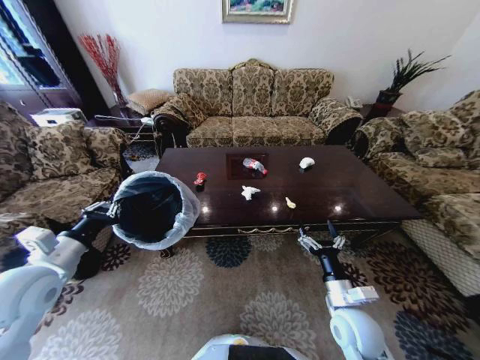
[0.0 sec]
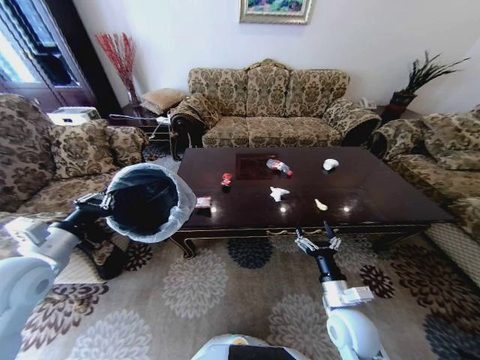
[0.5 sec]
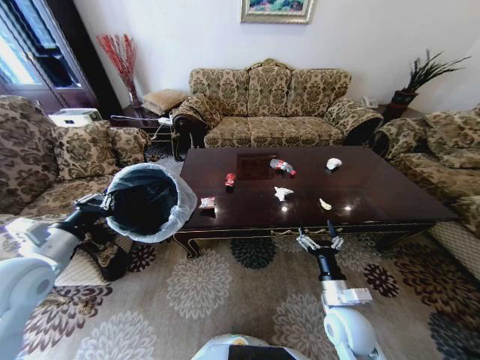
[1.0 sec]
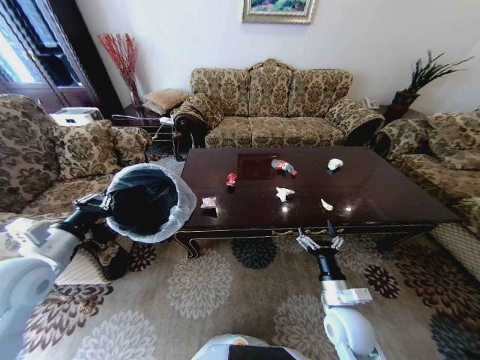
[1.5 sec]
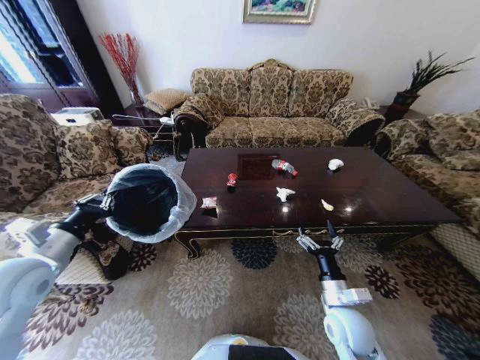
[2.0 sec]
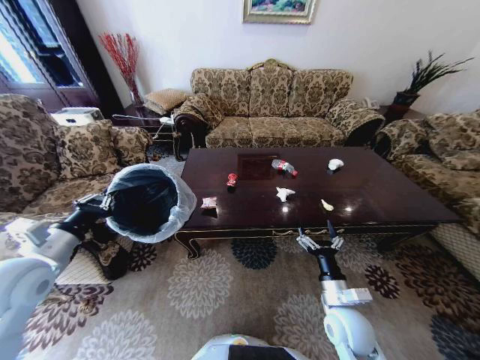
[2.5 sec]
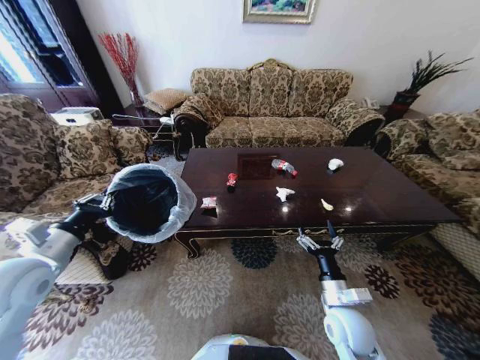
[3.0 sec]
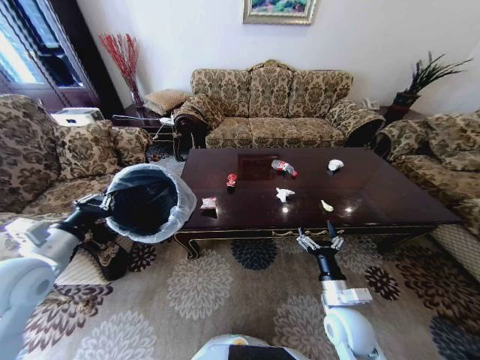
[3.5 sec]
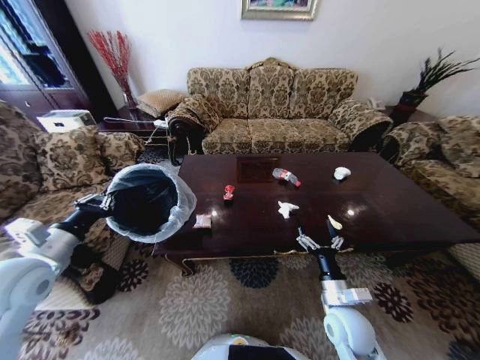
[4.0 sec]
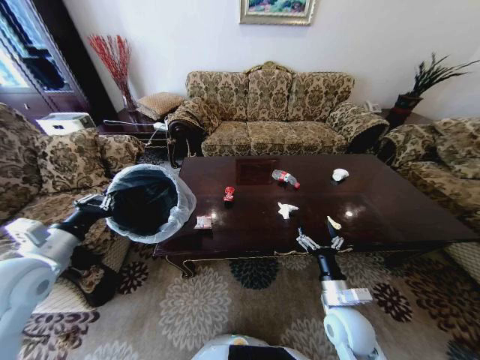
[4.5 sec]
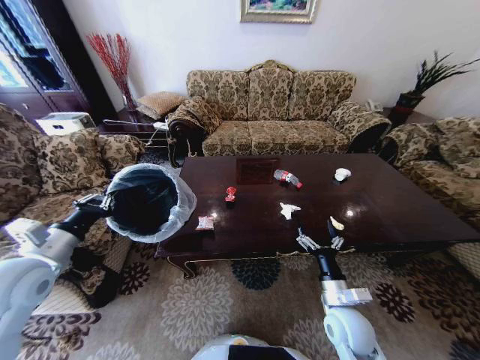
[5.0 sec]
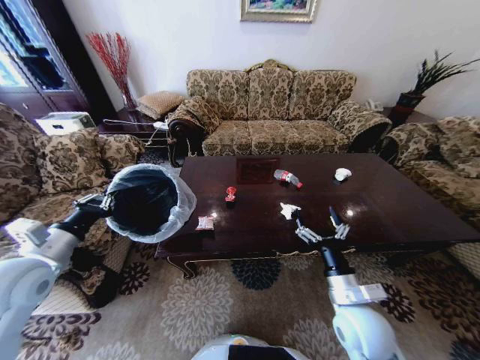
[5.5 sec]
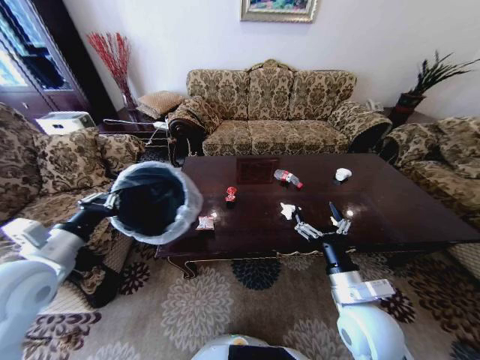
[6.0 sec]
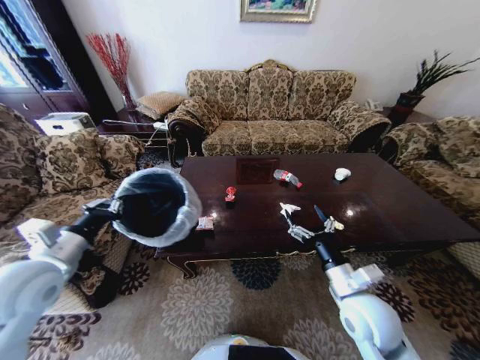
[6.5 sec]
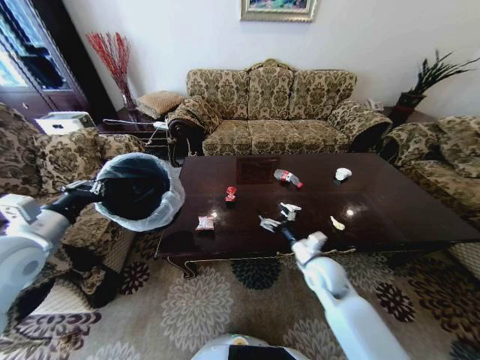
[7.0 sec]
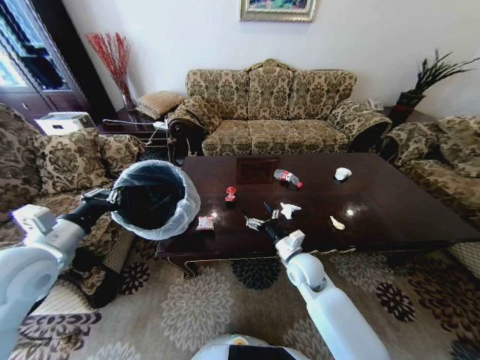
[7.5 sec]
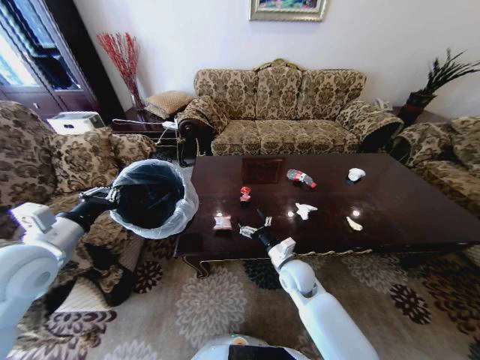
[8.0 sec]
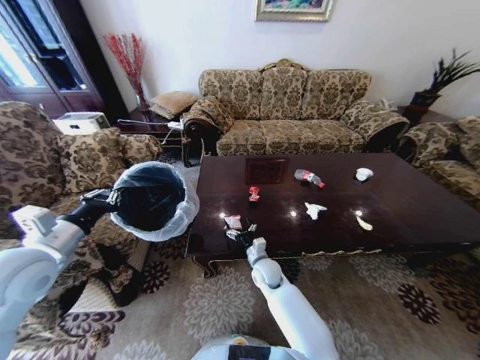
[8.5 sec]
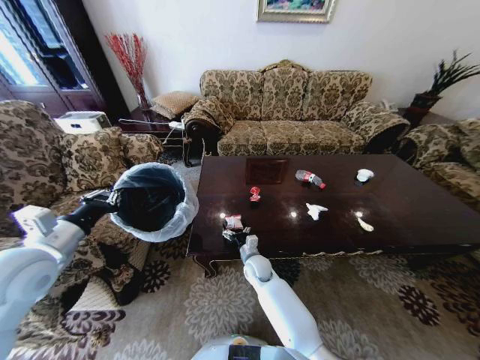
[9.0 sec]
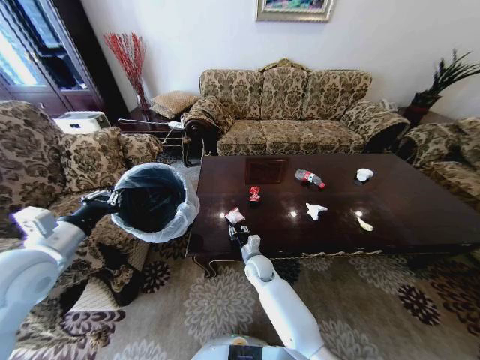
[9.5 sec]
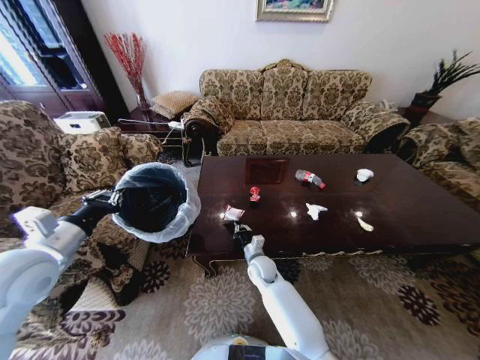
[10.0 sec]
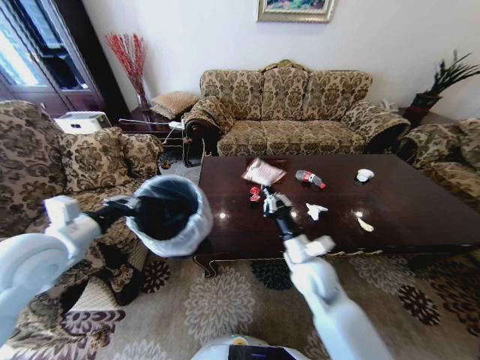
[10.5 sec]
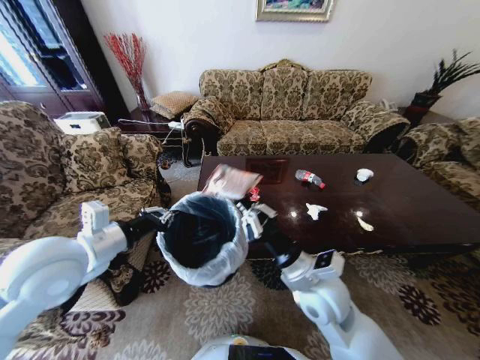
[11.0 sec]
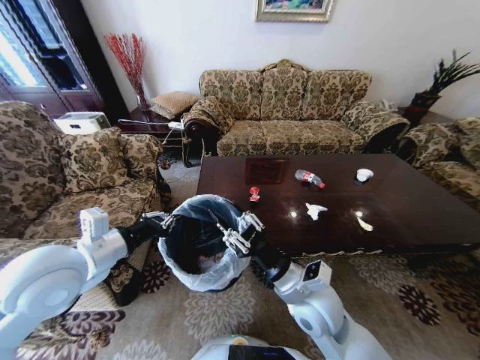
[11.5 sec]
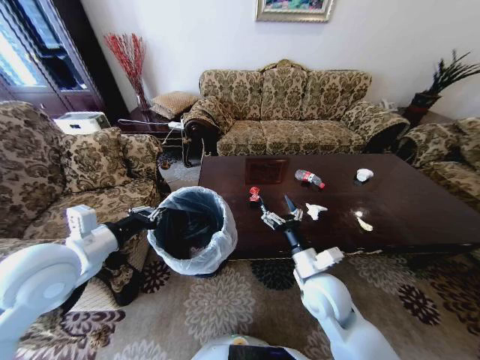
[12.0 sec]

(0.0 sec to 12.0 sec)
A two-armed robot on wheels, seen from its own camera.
Task of the whole recording: Move to the front of the table and place the trash on the table into the trash bin.
4.0 sec - 6.0 sec: The right gripper heads upward, covering approximately 10 cm.
6.0 sec - 8.0 sec: The right gripper shifts some 20 cm forward, downward and to the left.
8.0 sec - 10.0 sec: The right gripper heads to the left and downward, covering about 10 cm, and closes.
10.0 sec - 12.0 sec: The right gripper is displaced upward, backward and to the right by some 25 cm, and opens. The left gripper shifts about 5 cm to the right.

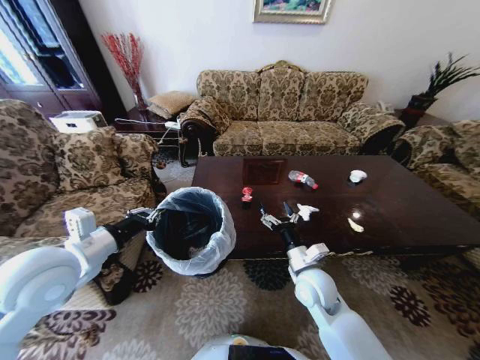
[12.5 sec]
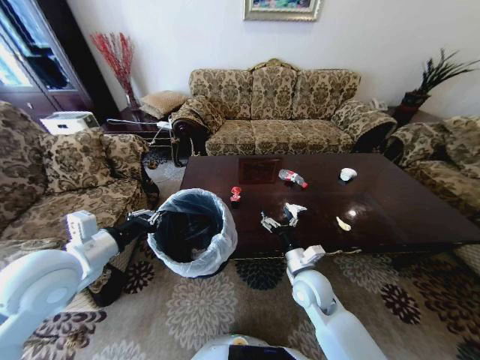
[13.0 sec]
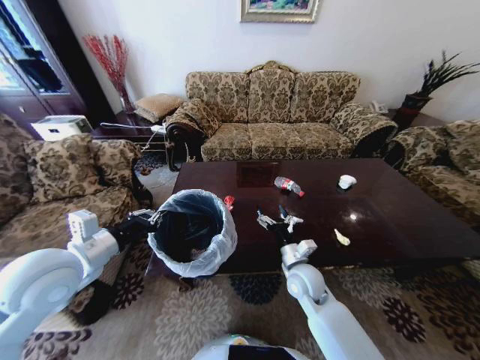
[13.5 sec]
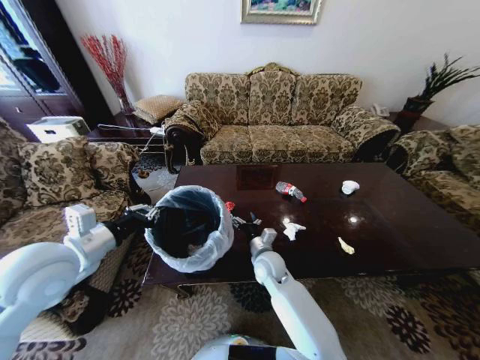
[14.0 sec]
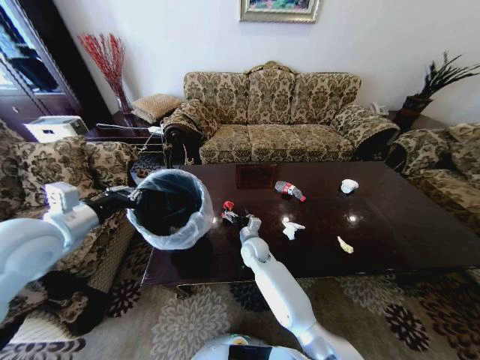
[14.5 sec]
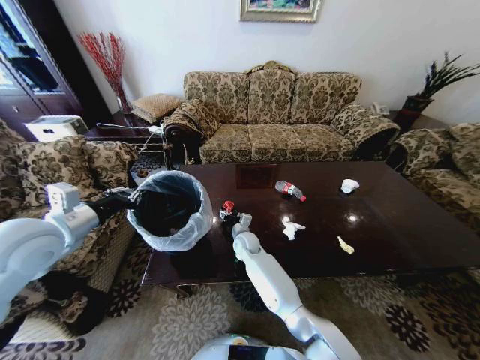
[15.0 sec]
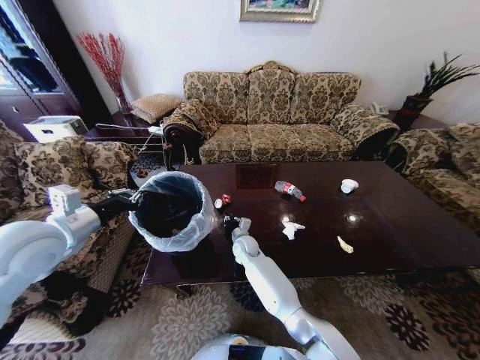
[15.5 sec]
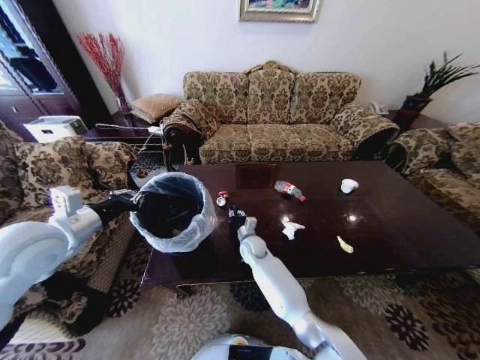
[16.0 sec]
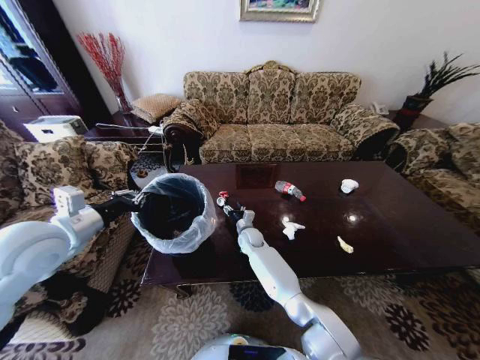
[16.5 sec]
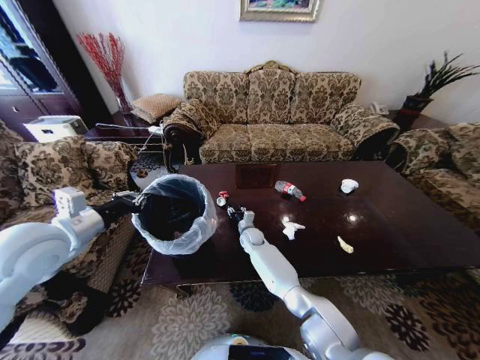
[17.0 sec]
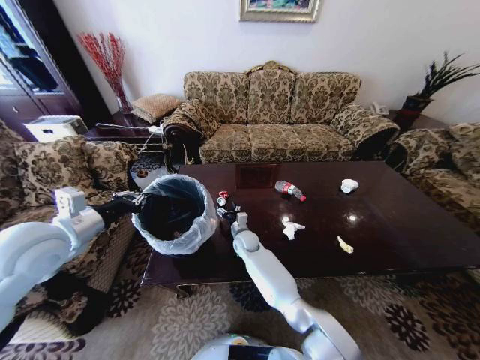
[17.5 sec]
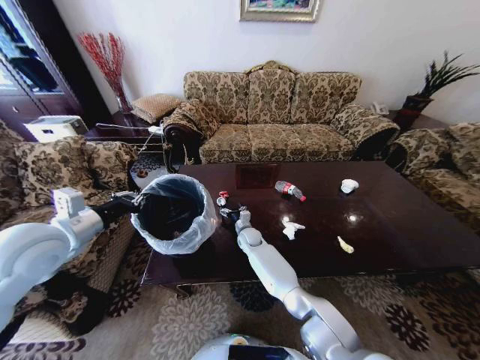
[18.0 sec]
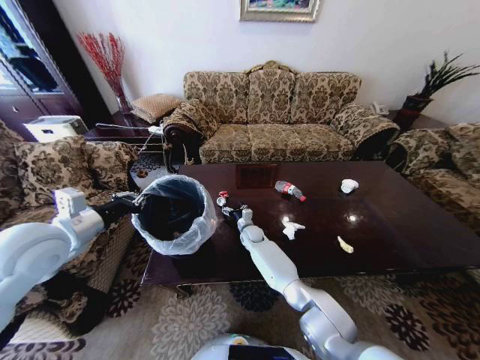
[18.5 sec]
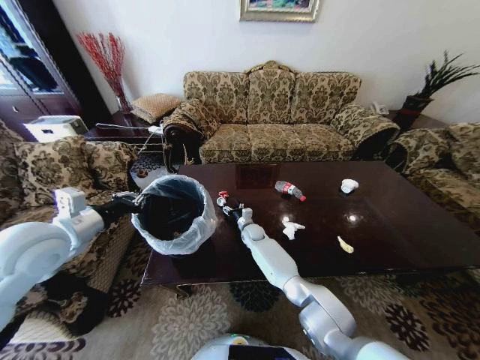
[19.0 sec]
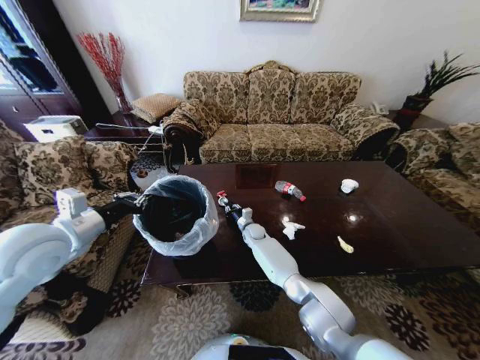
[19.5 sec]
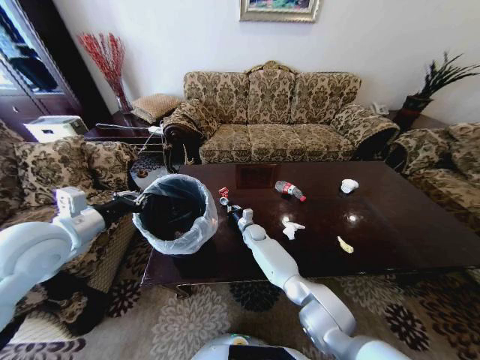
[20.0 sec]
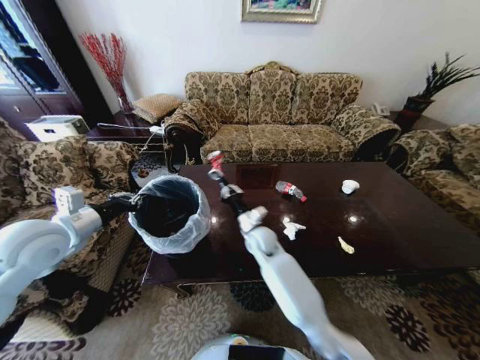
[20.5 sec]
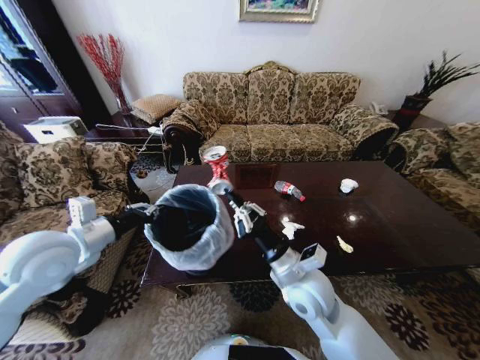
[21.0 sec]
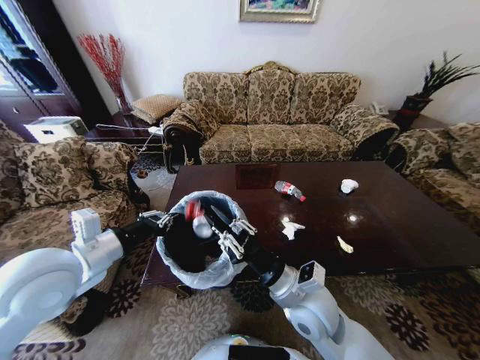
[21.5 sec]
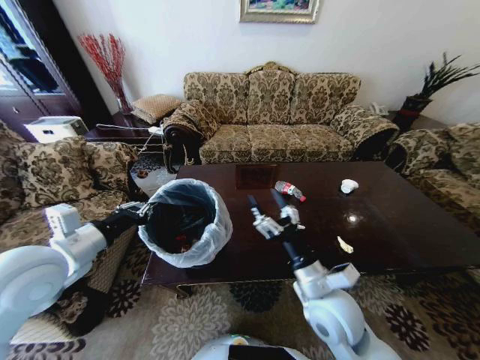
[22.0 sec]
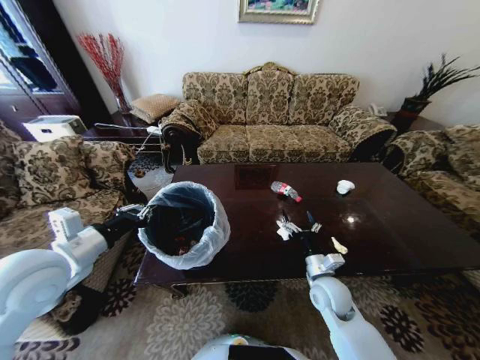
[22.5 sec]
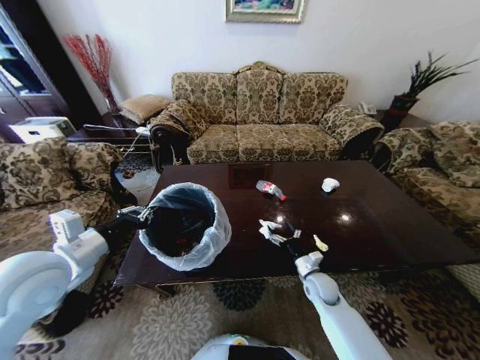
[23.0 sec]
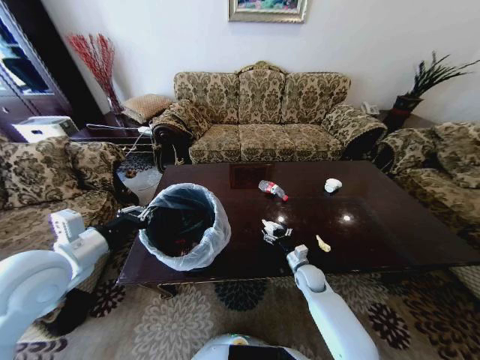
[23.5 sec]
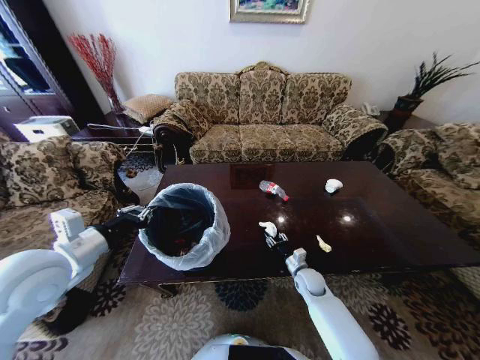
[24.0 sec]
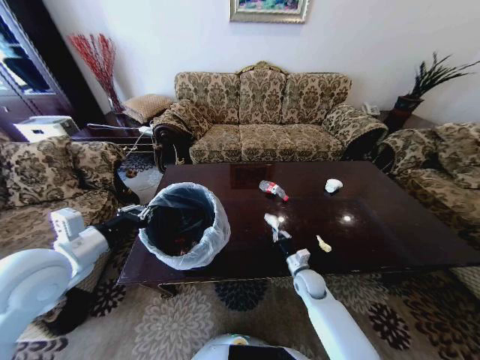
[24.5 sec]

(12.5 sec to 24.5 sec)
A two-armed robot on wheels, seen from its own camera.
Task of the whole recording: Move to the front of the table and place the trash on the table into the trash bin.
12.5 sec - 14.5 sec: The right gripper heads to the left, forward and downward, covering roughly 20 cm; the left gripper changes place by about 5 cm.
14.5 sec - 16.5 sec: The right gripper goes roughly 5 cm forward, and closes and opens again.
16.5 sec - 18.5 sec: The grippers move only a little.
18.5 sec - 20.5 sec: The right gripper is displaced upward and backward by roughly 15 cm, and closes.
20.5 sec - 22.5 sec: The right gripper is displaced to the right and backward by approximately 20 cm, and opens its fingers. The left gripper travels backward by about 5 cm.
22.5 sec - 24.5 sec: The right gripper is displaced downward and forward by roughly 15 cm, and closes.

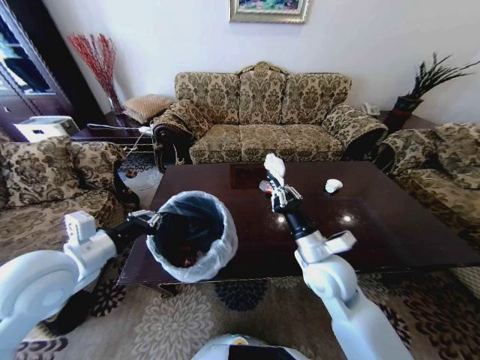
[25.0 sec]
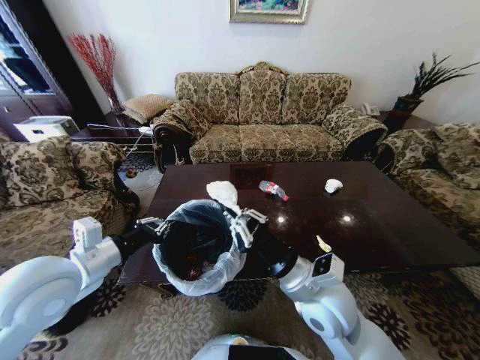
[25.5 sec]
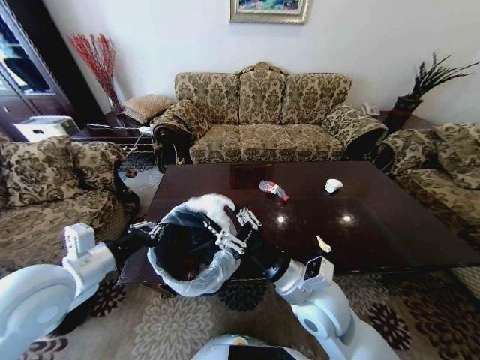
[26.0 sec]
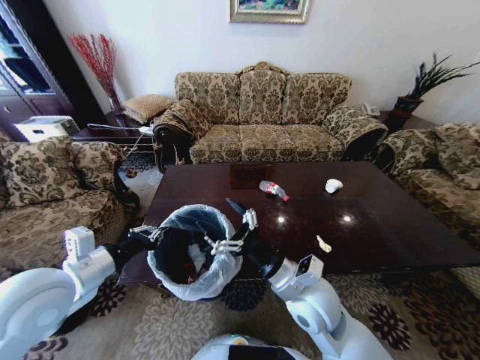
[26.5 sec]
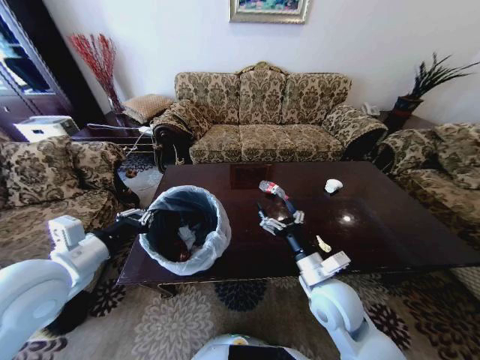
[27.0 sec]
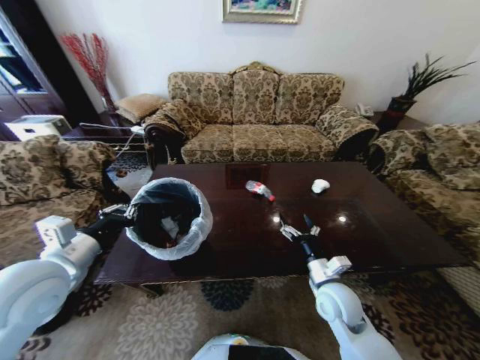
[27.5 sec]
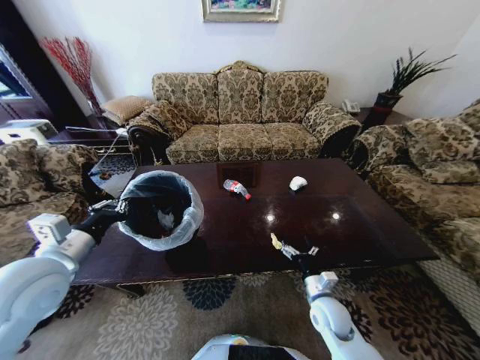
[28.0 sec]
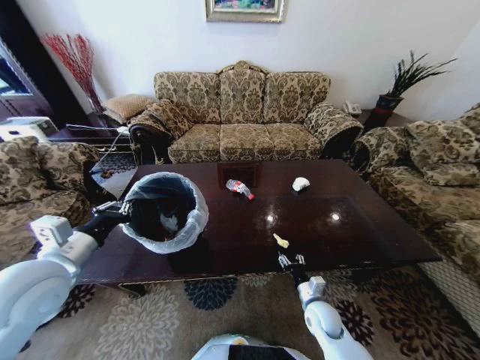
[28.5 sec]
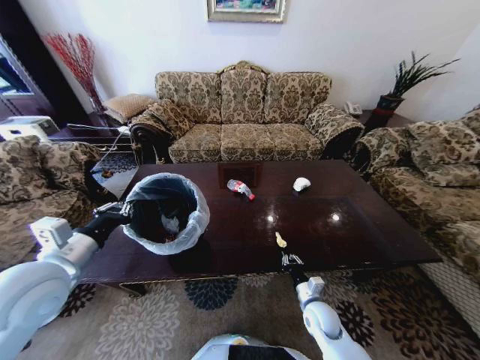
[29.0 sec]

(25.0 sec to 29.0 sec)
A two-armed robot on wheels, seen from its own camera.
Task of the whole recording: Move to the front of the table and place the trash on the table into the trash bin.
25.0 sec - 27.0 sec: The right gripper moves roughly 5 cm, and opens up.
27.0 sec - 29.0 sec: The right gripper heads downward, covering about 20 cm, and closes.
